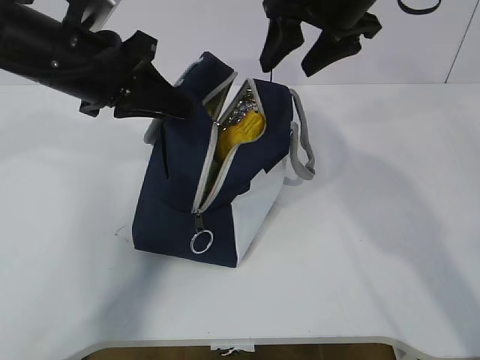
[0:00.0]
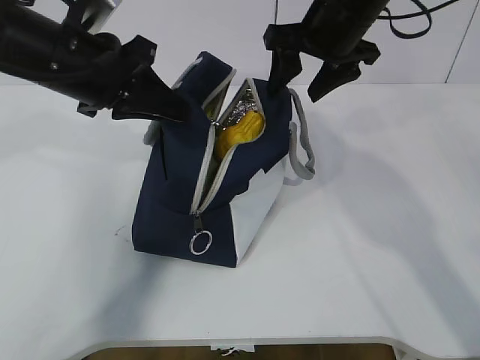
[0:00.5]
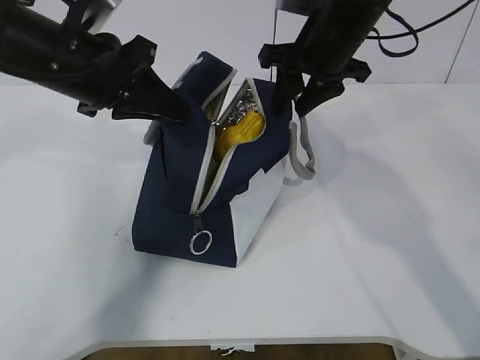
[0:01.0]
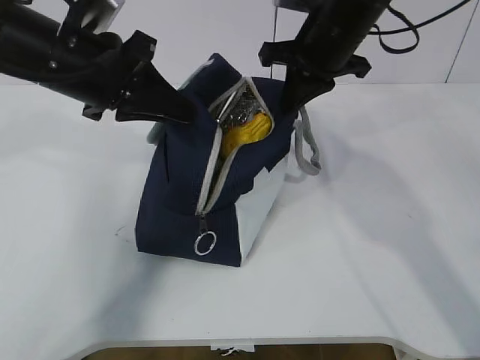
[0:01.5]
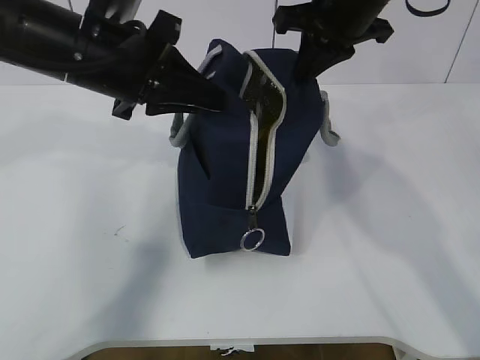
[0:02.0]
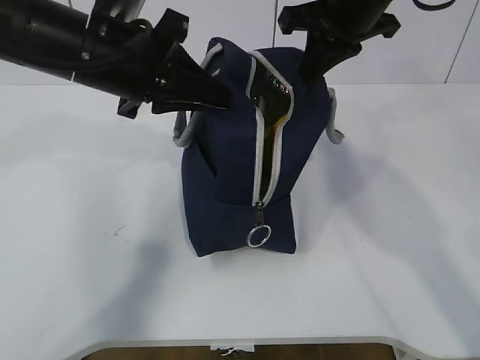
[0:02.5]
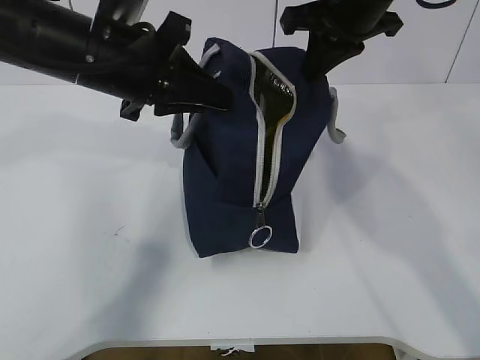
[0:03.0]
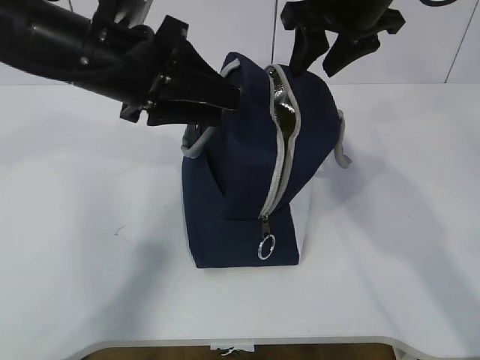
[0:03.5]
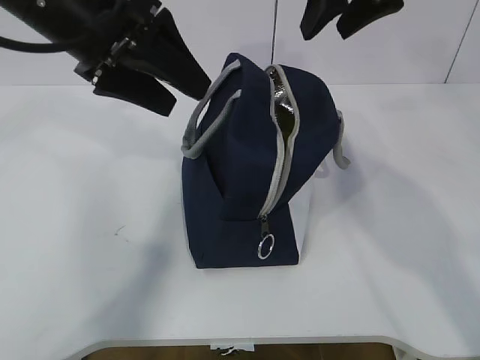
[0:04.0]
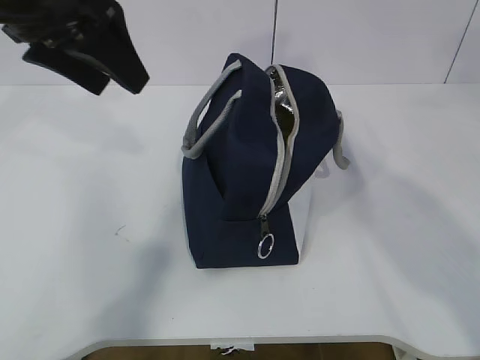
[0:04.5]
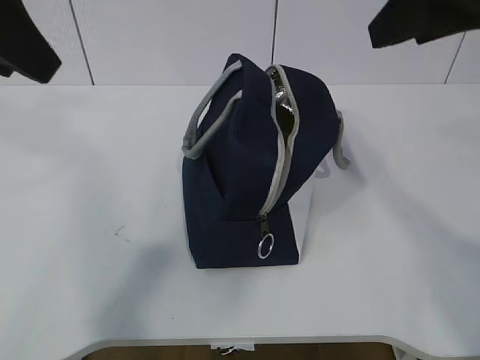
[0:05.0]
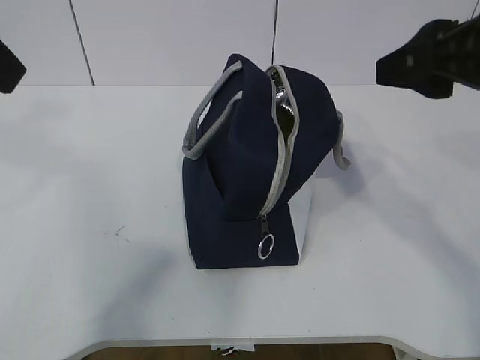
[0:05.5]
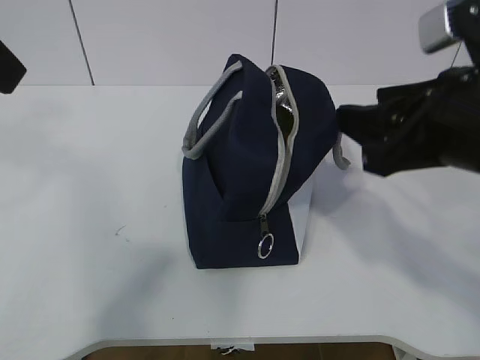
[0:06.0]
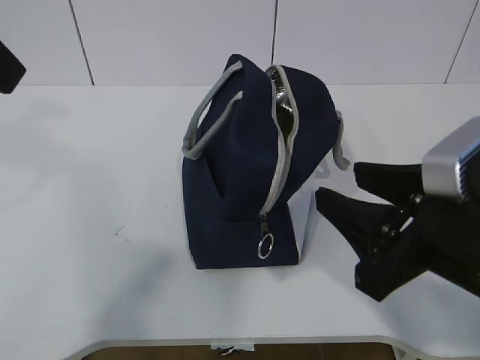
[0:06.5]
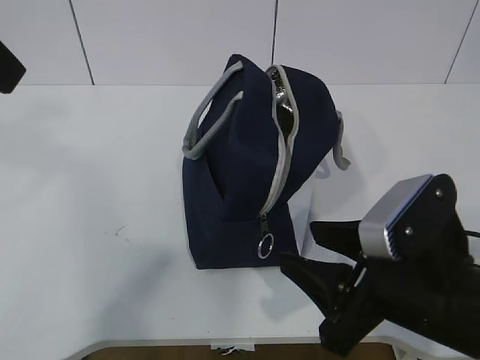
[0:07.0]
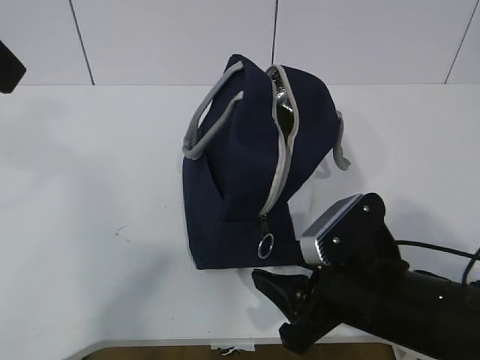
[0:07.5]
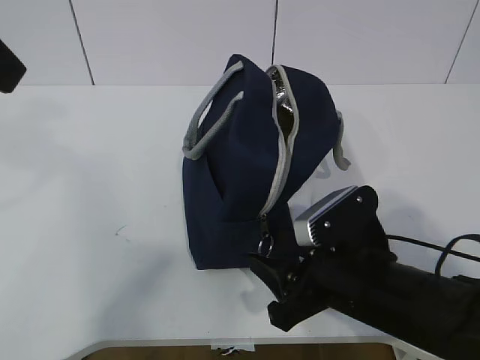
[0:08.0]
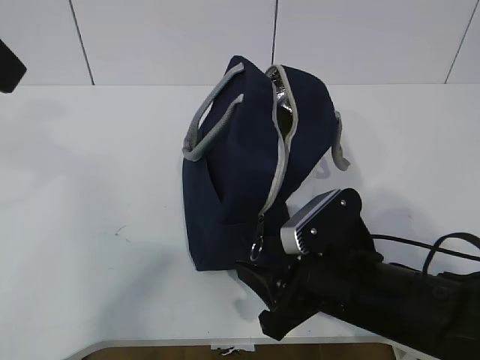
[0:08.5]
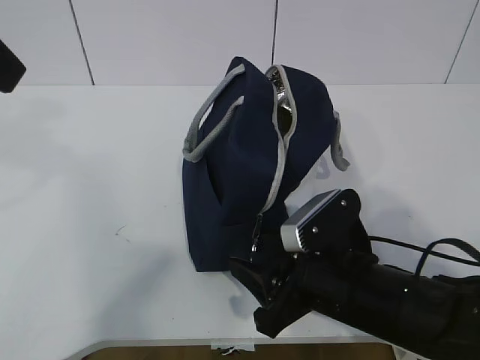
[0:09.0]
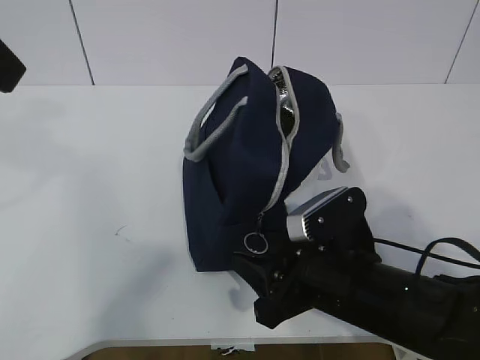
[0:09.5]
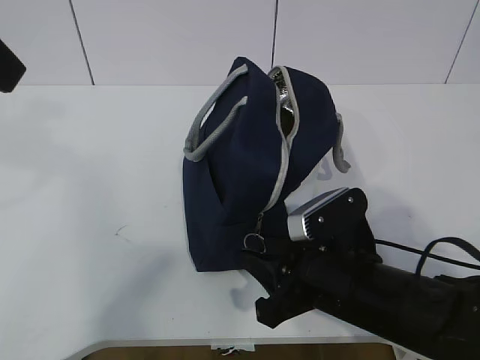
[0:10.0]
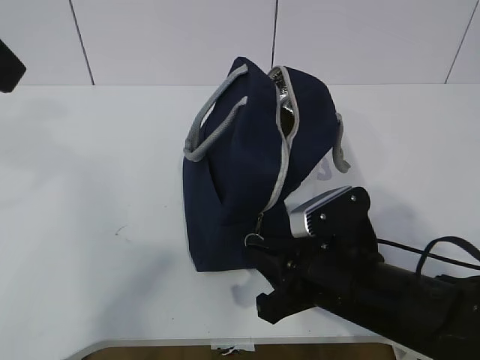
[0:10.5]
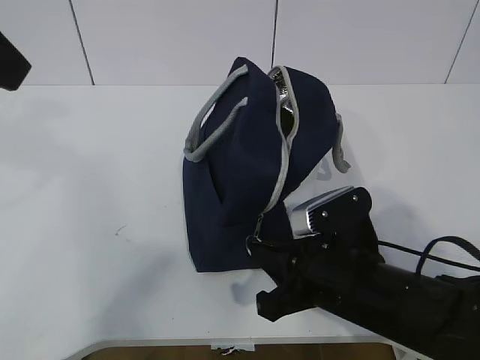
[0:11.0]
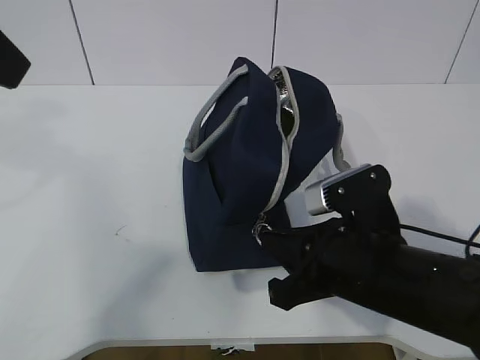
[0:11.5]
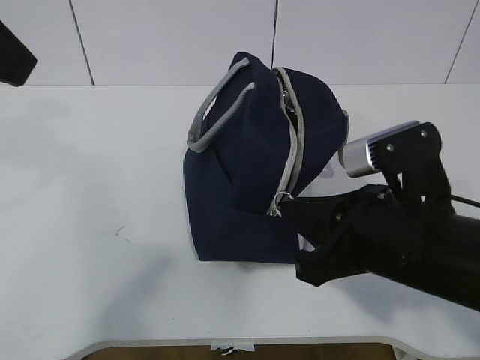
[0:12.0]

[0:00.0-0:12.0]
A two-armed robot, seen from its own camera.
0:00.0 to 0:02.0: The right gripper closes up.
0:02.0 to 0:04.0: The right gripper changes place by about 5 cm, and opens up, while the left gripper opens its fingers.
0:04.0 to 0:06.0: The left gripper travels backward, upward and to the left by about 15 cm, while the right gripper heads backward and downward, covering some 20 cm.
0:06.0 to 0:08.0: The right gripper moves downward, about 15 cm.
0:08.0 to 0:10.0: The grippers make only small movements.
0:10.0 to 0:12.0: The right gripper shifts roughly 10 cm upward, and closes.

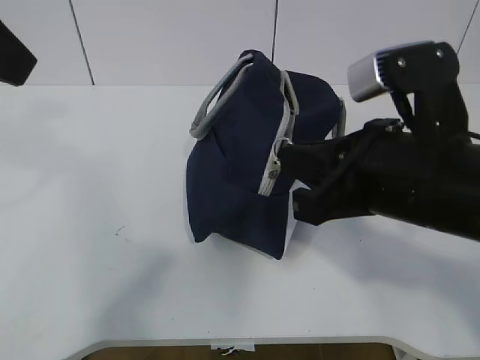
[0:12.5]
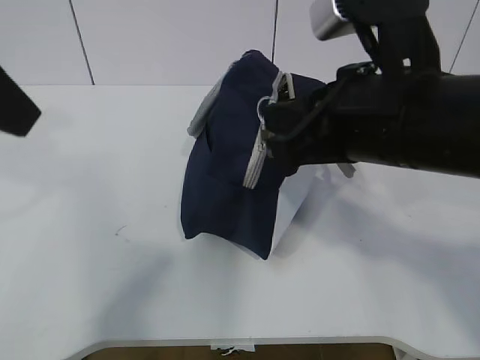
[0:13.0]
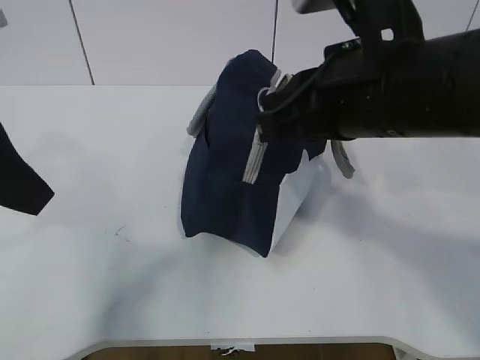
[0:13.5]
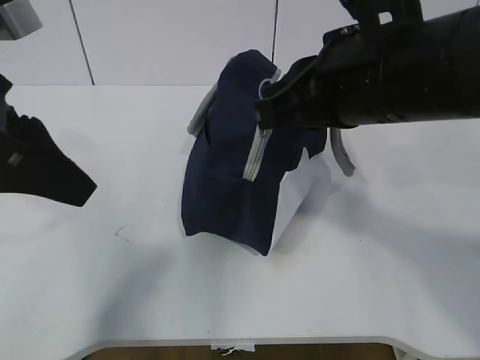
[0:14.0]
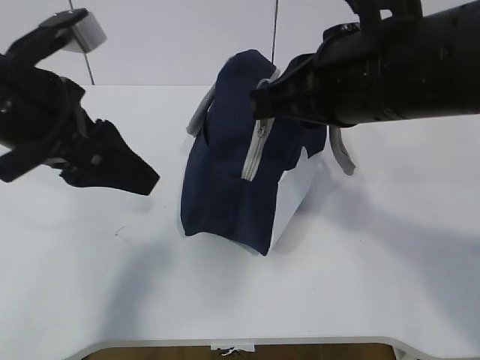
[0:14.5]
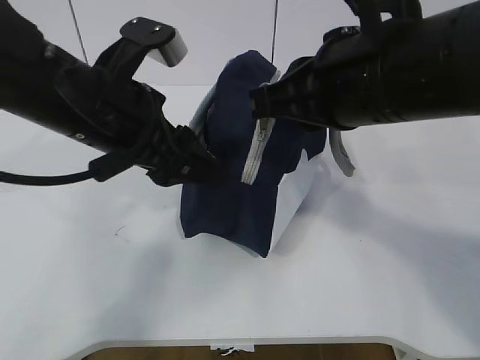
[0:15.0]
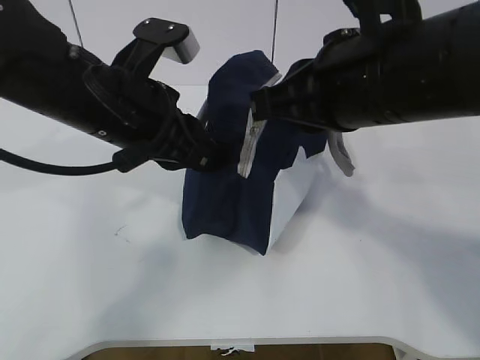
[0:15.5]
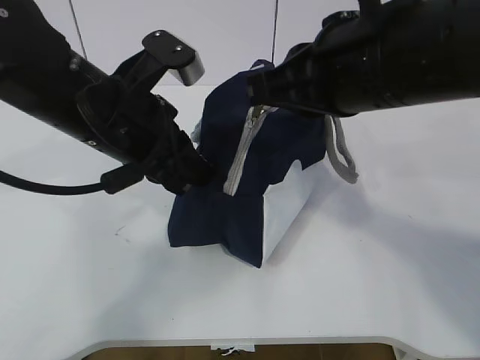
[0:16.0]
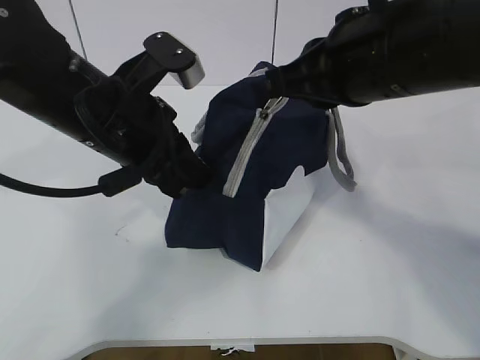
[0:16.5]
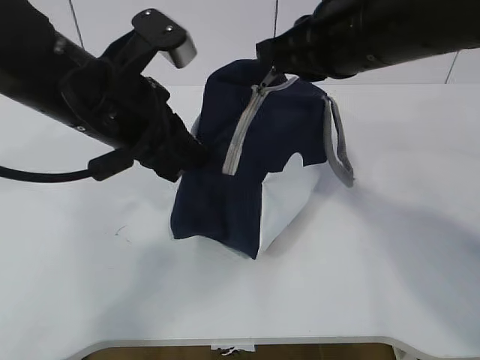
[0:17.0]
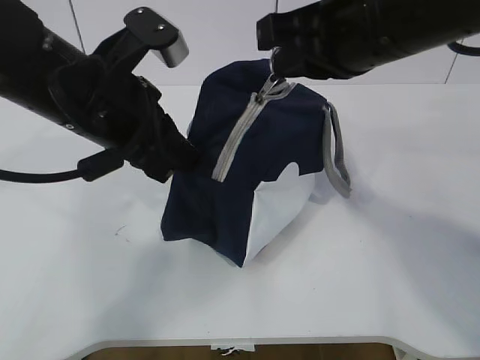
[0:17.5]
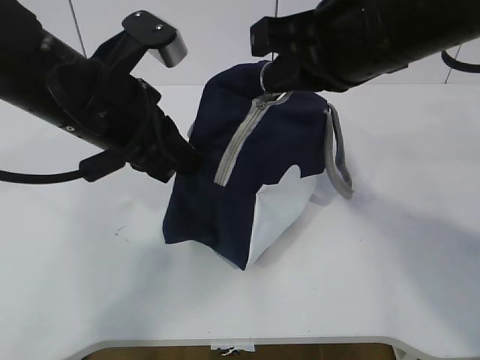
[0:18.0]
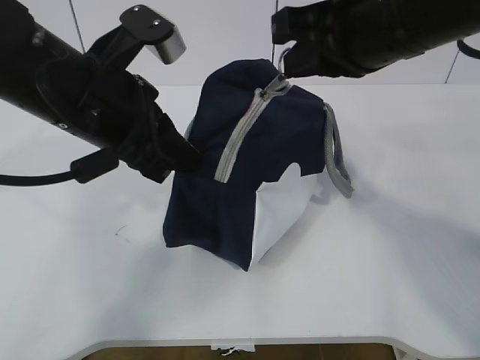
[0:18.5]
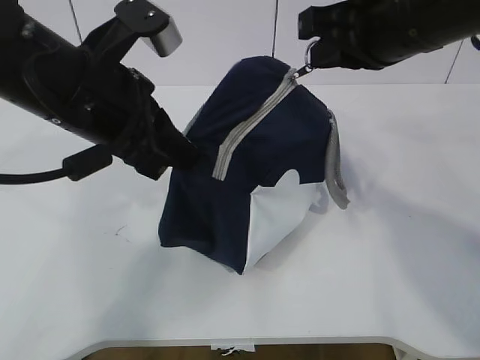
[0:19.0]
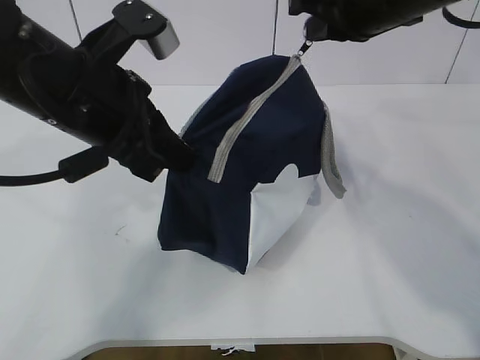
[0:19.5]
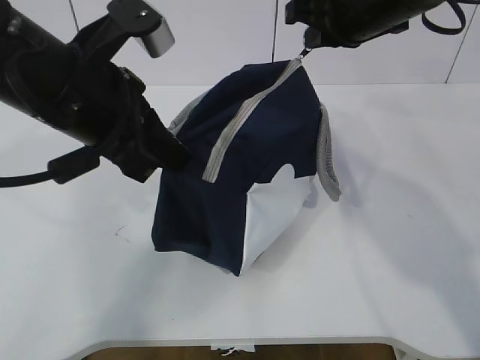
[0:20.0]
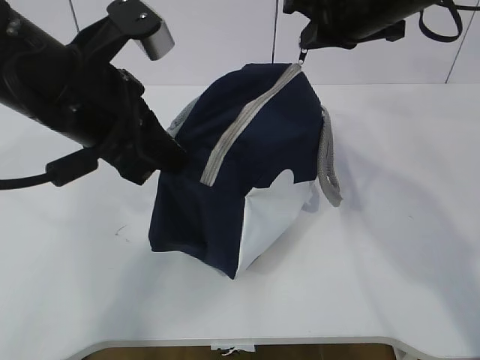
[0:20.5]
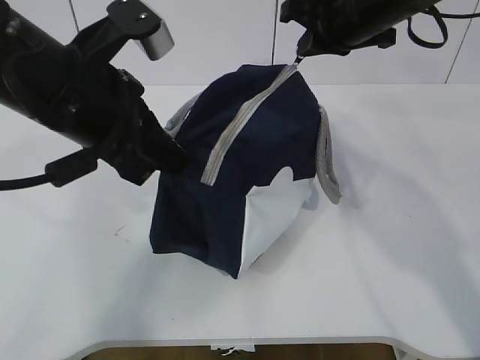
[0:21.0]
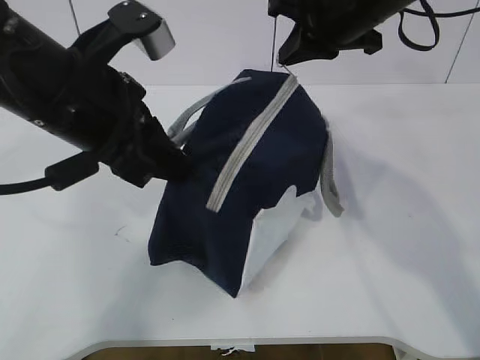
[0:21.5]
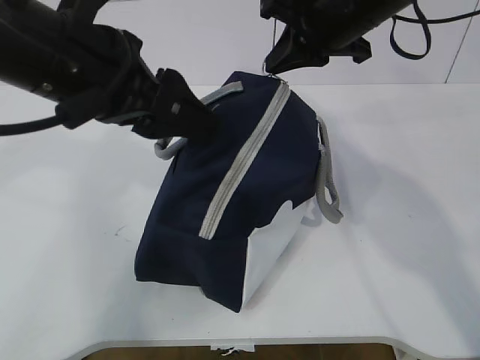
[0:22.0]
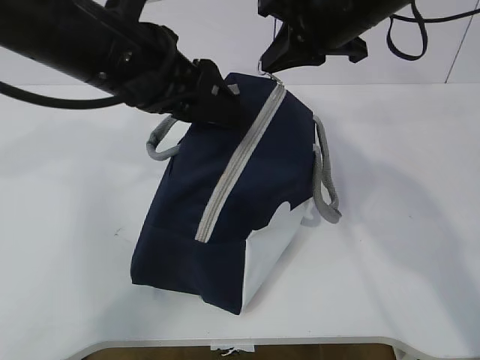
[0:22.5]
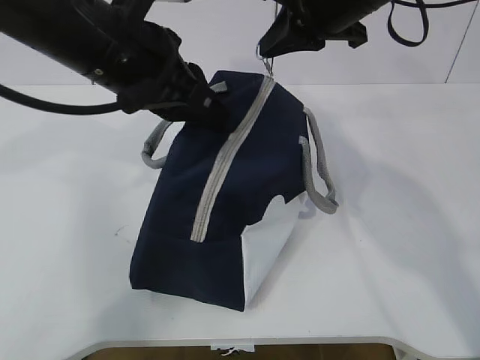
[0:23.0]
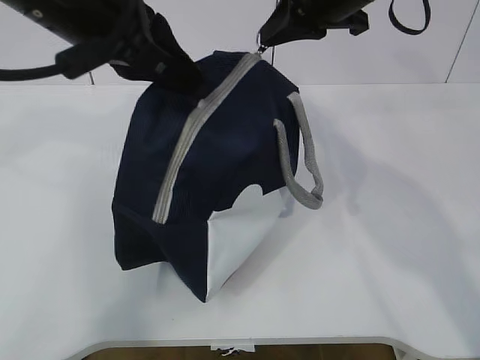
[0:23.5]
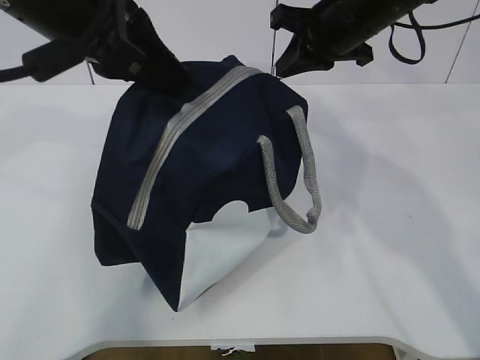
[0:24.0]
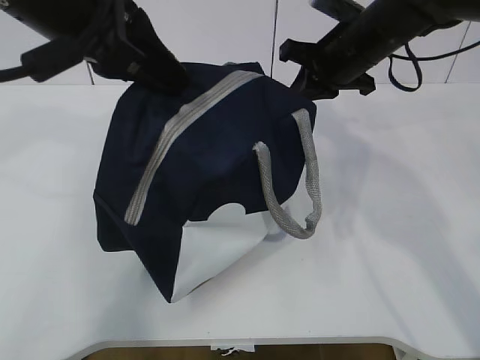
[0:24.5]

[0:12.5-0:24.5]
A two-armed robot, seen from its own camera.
Step, 0:13.5 to 0:17.0: Pull the zipper with your right hand.
0:12.5 to 0:14.5: The left gripper goes roughly 15 cm downward, while the right gripper is displaced upward by about 5 cm.
0:14.5 to 0:16.5: The left gripper travels to the right by some 5 cm, and closes.
0:16.5 to 0:18.5: The grippers make only small movements.
0:18.5 to 0:20.5: The right gripper shifts roughly 10 cm forward.
0:20.5 to 0:22.5: The left gripper opens up.
0:22.5 to 0:24.5: The left gripper is displaced upward by roughly 5 cm, and closes its fingers, while the right gripper is displaced downward by about 5 cm.

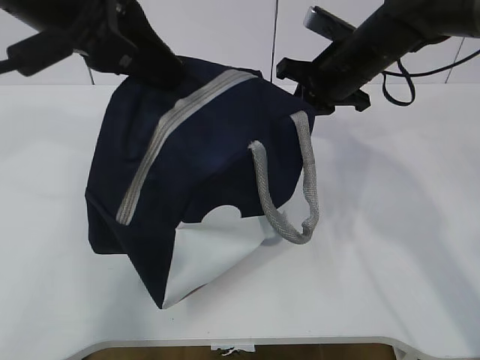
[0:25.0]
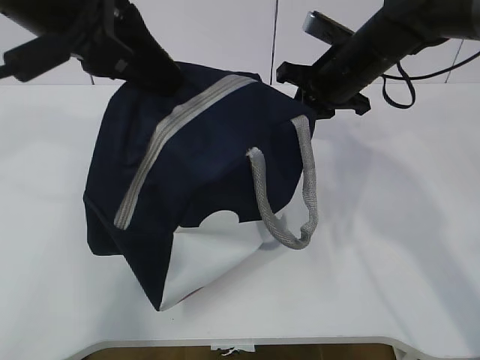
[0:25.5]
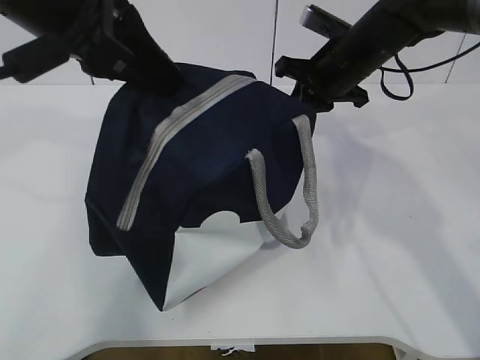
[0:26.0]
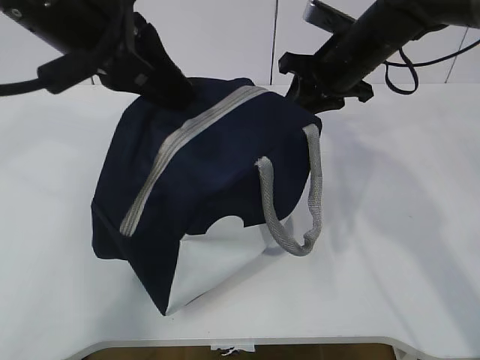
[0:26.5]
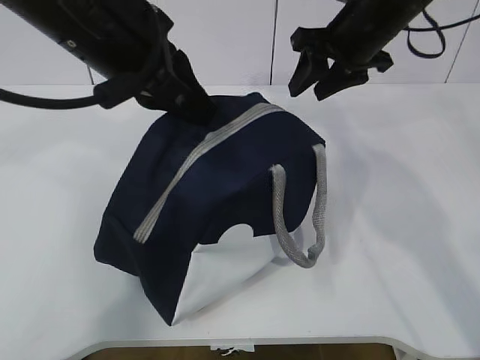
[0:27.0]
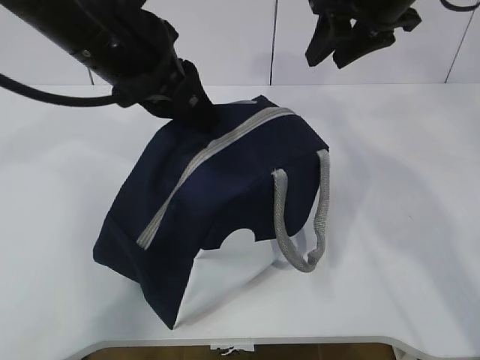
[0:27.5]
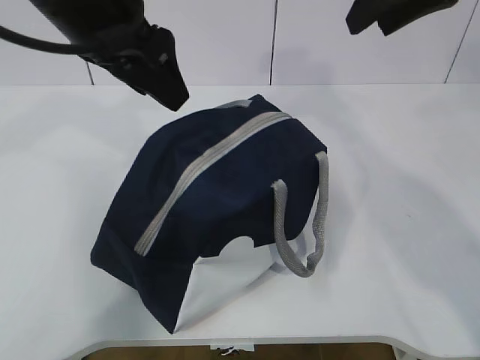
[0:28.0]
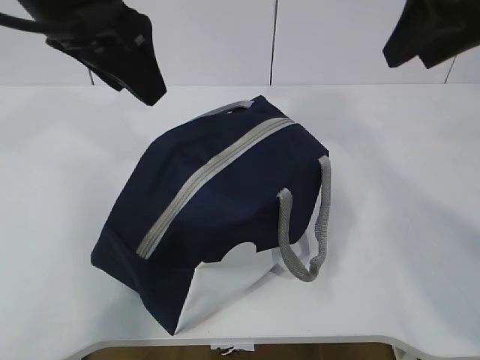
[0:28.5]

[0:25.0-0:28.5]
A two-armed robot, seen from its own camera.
0:25.0 to 0:27.0: The right gripper opens. The left gripper shifts by some 5 cm.
0:27.0 to 0:28.5: The right gripper travels backward and upward by roughly 20 cm, while the left gripper opens up.
